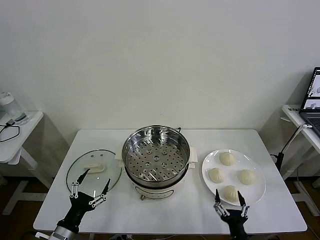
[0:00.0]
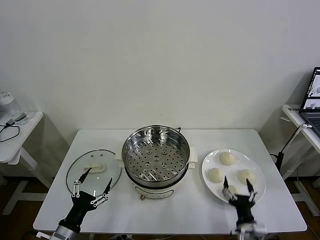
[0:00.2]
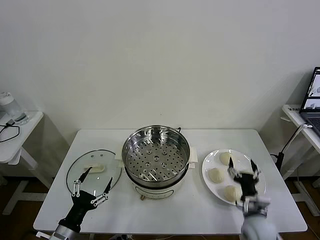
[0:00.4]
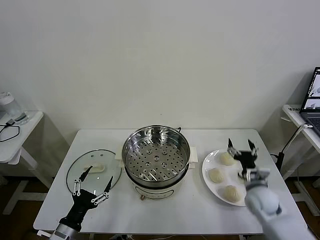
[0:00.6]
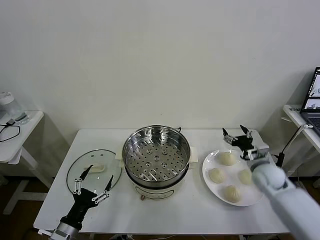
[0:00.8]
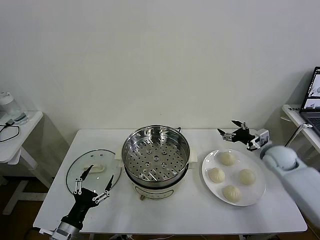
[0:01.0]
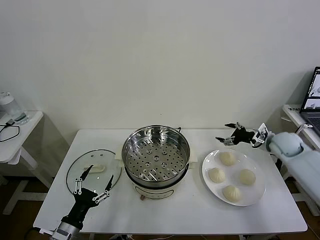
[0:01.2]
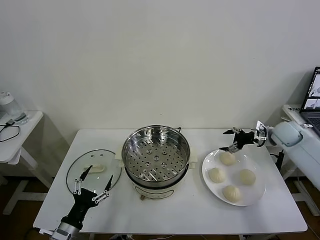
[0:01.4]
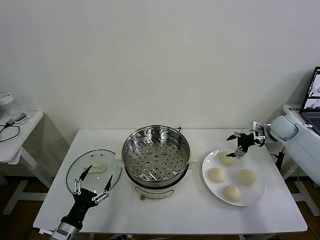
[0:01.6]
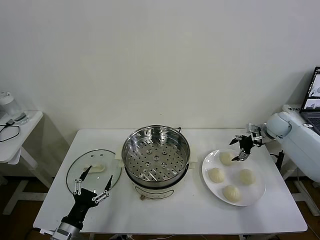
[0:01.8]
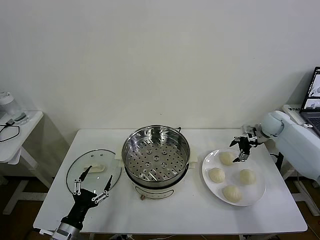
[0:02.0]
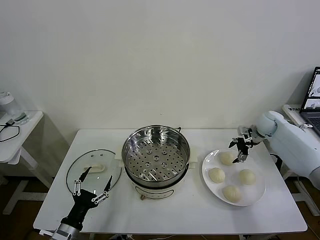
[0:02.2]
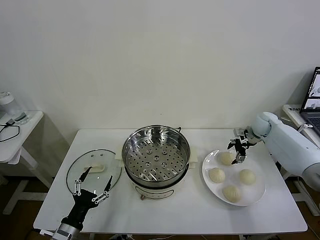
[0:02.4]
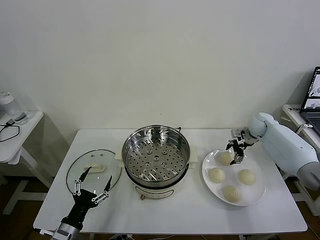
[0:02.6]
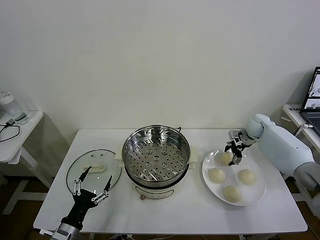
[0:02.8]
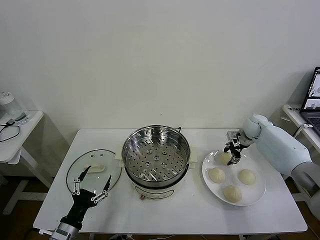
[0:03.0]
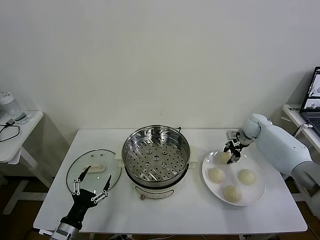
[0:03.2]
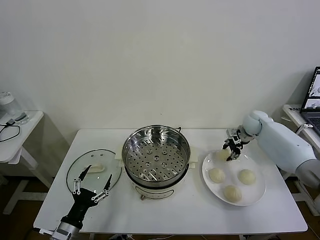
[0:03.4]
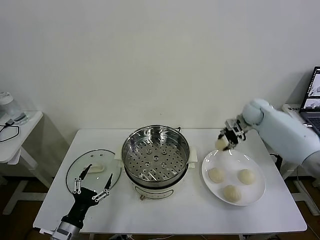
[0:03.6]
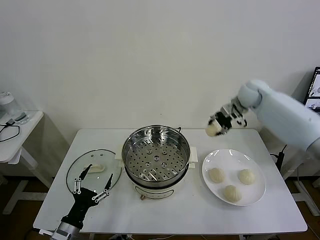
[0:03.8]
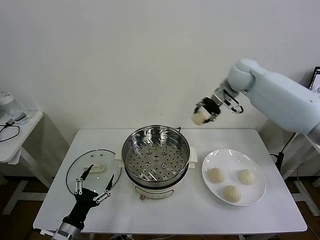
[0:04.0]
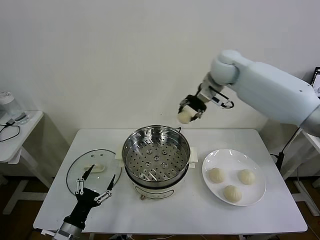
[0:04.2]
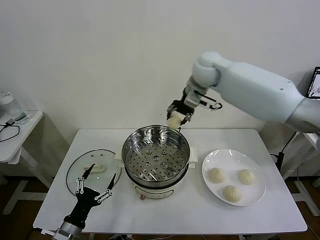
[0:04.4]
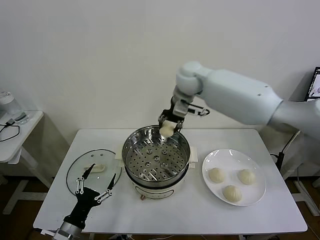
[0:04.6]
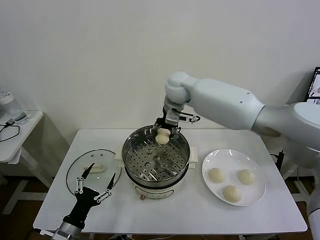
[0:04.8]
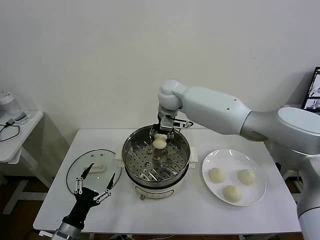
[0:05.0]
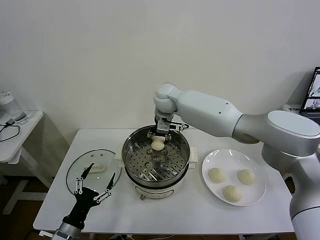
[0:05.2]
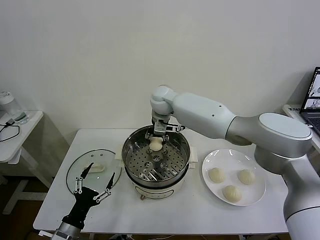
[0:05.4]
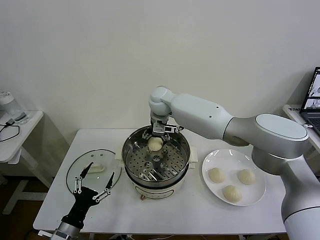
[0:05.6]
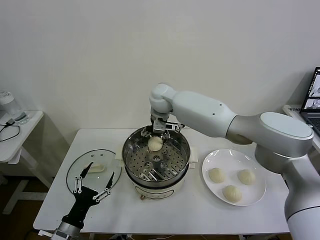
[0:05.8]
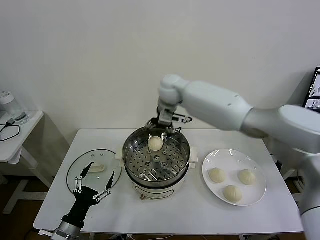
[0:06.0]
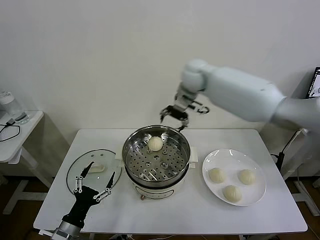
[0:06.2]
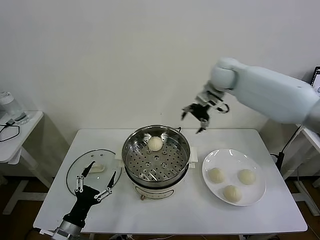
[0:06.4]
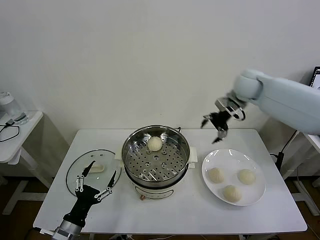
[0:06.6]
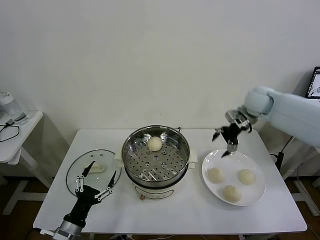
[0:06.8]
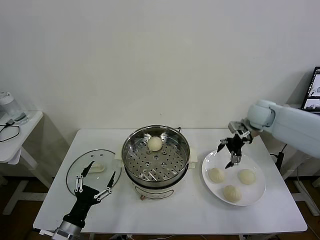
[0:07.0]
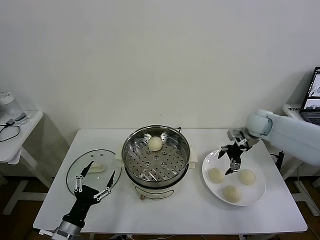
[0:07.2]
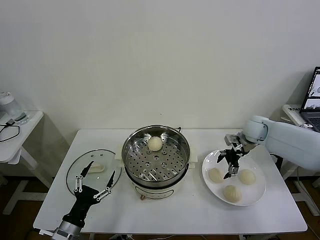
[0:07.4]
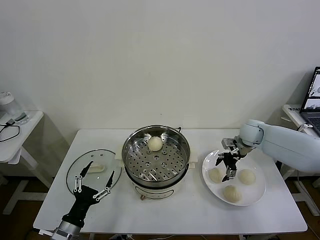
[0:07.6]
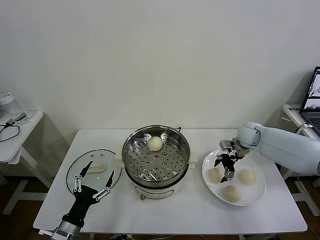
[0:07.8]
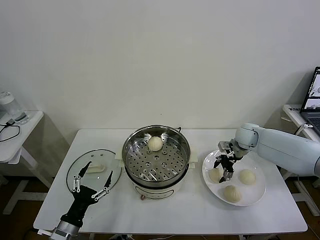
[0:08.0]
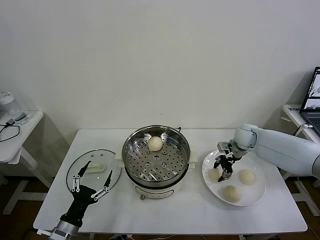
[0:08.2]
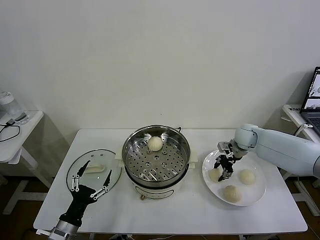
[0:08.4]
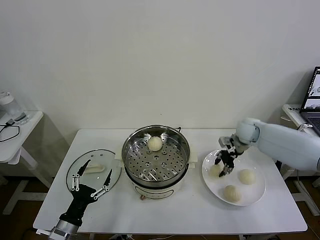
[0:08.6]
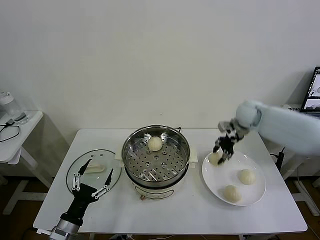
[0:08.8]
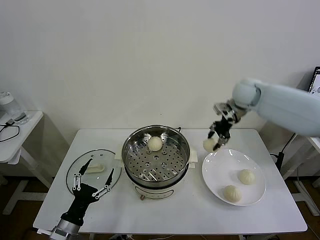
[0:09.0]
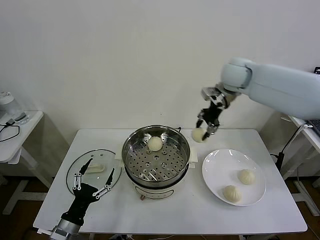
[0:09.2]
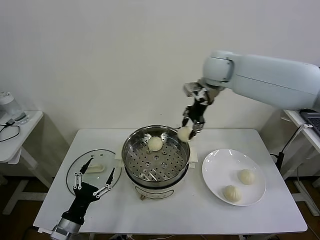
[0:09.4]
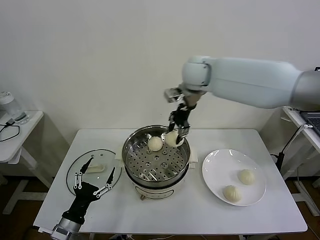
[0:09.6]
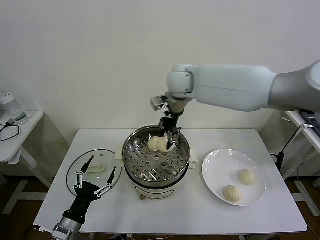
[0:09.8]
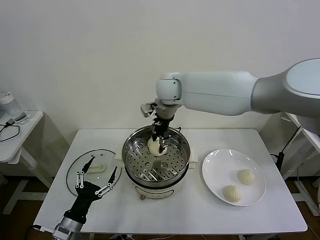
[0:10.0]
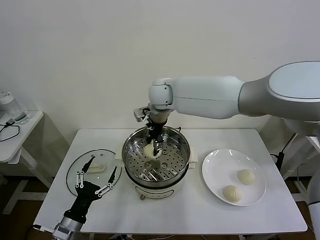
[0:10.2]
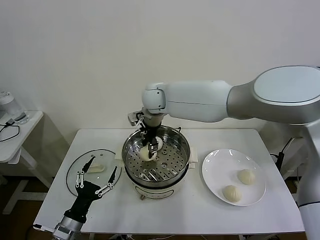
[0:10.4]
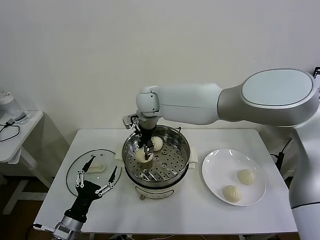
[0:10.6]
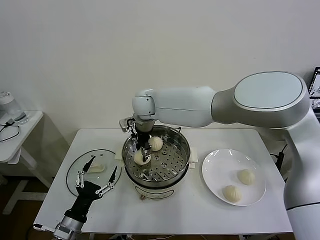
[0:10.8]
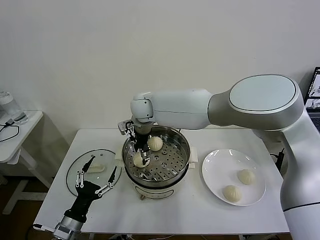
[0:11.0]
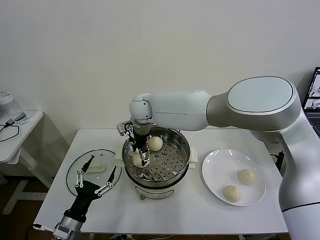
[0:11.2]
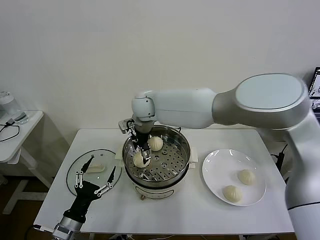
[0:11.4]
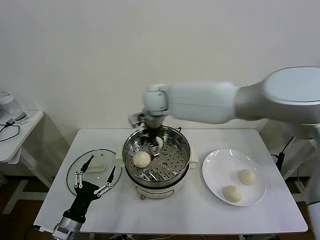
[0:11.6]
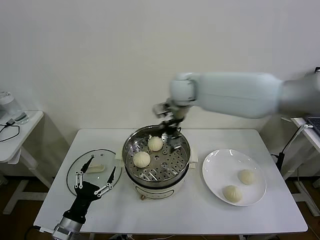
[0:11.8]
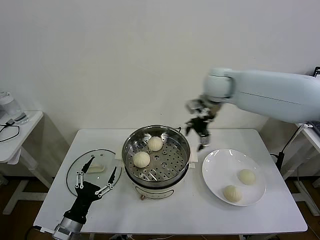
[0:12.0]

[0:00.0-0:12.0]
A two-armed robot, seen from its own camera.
Task of the whole recording: take steamed baozi put them in steamer then cover it.
Step, 0:00.0 to 0:03.0: Grasp the baozi in the plate with right gripper.
Step, 0:03.4 to 0:05.6: Place the baozi on the steamer with right gripper.
Step, 0:05.8 to 0:08.2: Grasp the baozi in the plate with right gripper.
Step, 0:08.6 to 0:11.2: Place the baozi on the steamer with right gripper.
0:01.6 to 0:03.0: The right gripper is displaced to the left, downward and forward by some 10 cm, and closes its fingers.
0:03.0 to 0:04.4: The right gripper shifts some 35 cm to the left and upward.
0:04.4 to 0:06.0: The right gripper opens up.
0:06.0 to 0:07.6: The right gripper shifts approximately 35 cm to the right and downward.
0:07.6 to 0:09.0: The right gripper heads upward and to the left, covering roughly 20 cm, and closes its fingers.
0:09.0 to 0:10.4: The right gripper shifts approximately 30 cm to the left.
0:10.4 to 0:12.0: The right gripper shifts roughly 25 cm to the right, and opens.

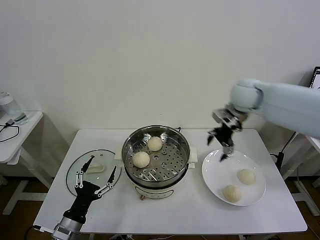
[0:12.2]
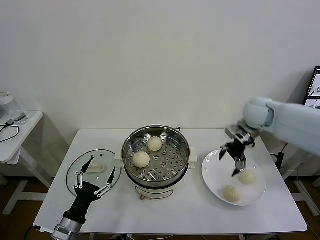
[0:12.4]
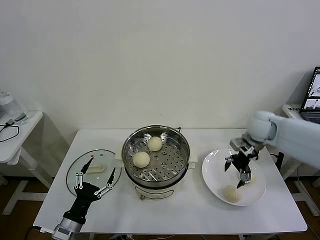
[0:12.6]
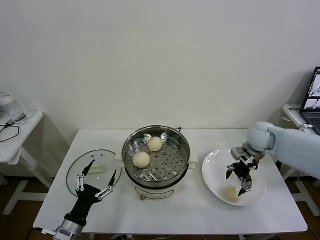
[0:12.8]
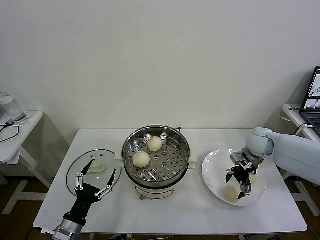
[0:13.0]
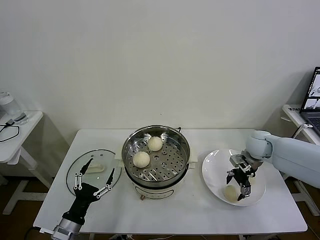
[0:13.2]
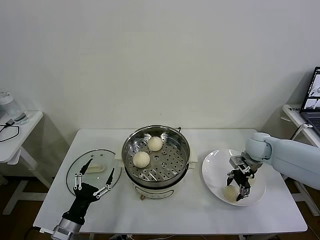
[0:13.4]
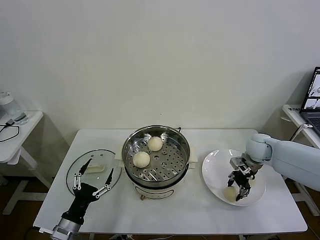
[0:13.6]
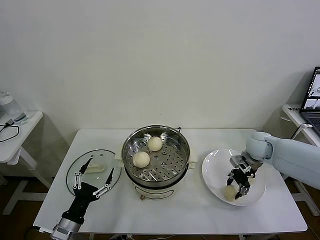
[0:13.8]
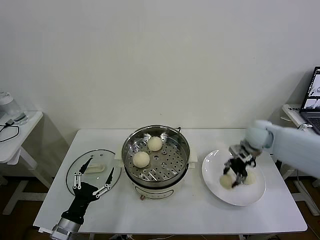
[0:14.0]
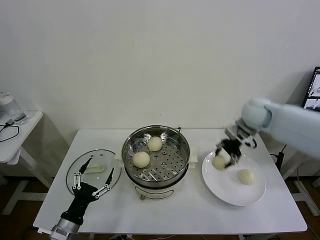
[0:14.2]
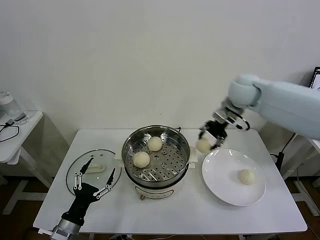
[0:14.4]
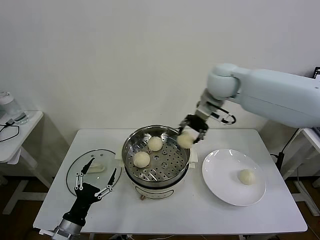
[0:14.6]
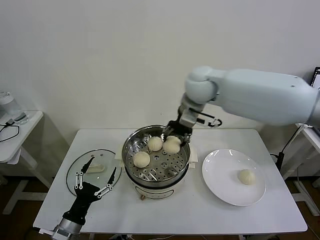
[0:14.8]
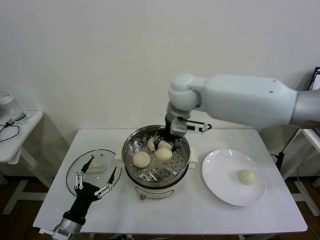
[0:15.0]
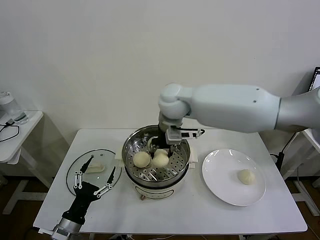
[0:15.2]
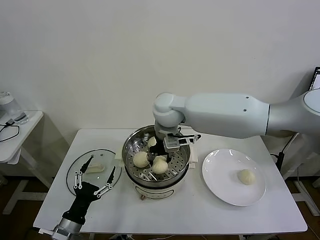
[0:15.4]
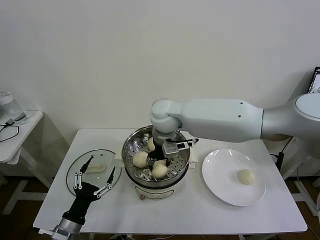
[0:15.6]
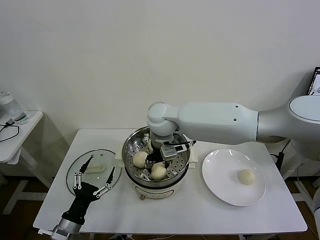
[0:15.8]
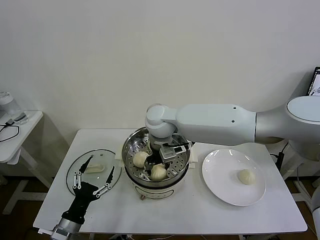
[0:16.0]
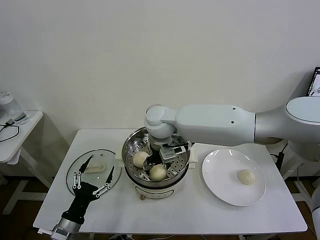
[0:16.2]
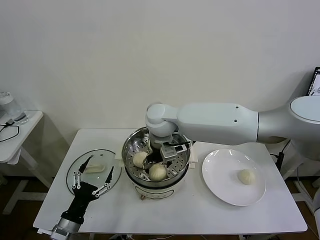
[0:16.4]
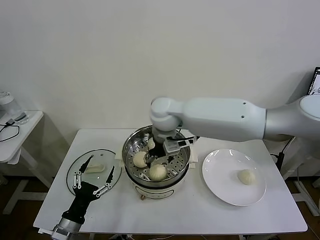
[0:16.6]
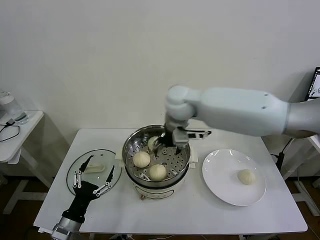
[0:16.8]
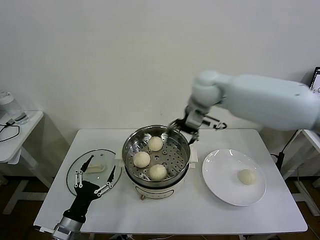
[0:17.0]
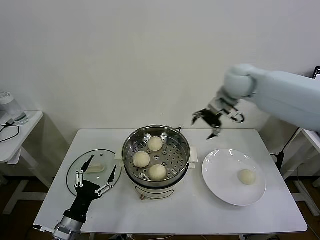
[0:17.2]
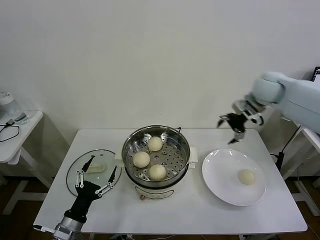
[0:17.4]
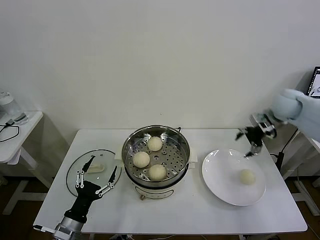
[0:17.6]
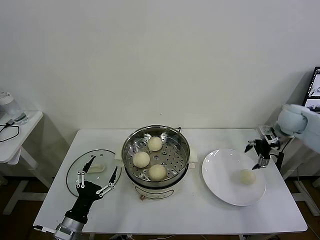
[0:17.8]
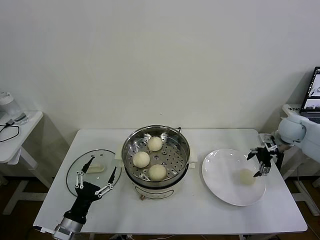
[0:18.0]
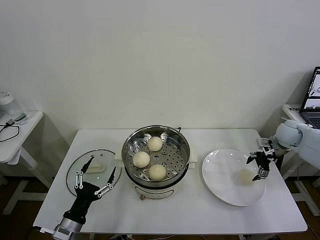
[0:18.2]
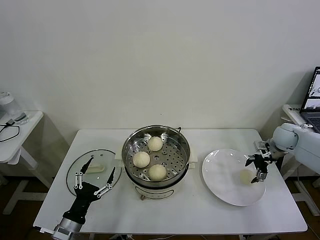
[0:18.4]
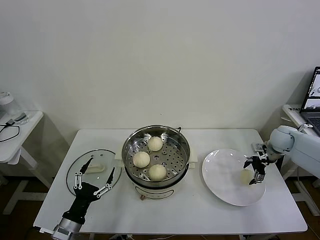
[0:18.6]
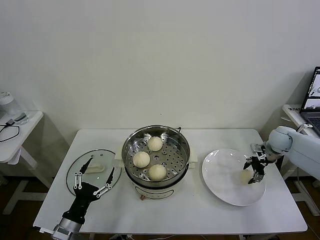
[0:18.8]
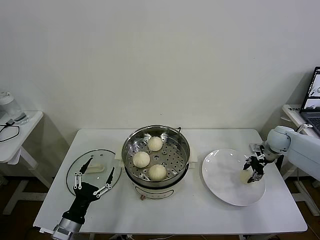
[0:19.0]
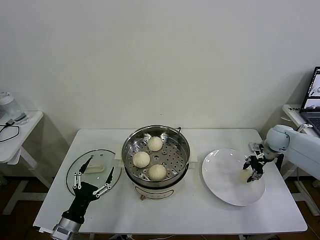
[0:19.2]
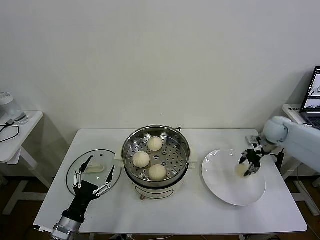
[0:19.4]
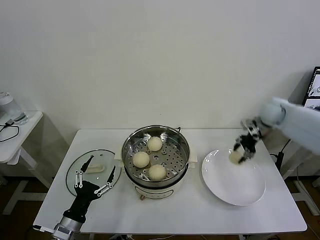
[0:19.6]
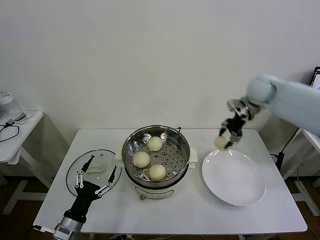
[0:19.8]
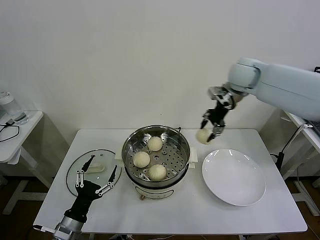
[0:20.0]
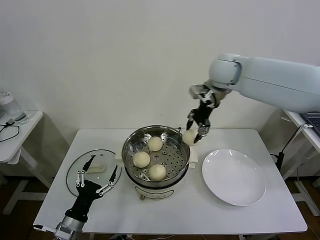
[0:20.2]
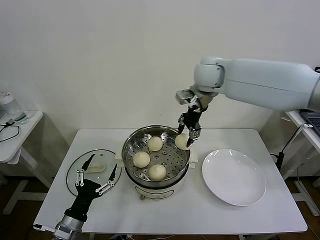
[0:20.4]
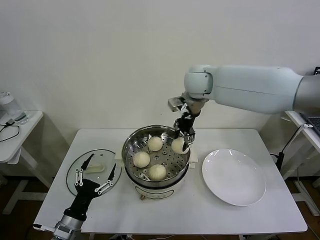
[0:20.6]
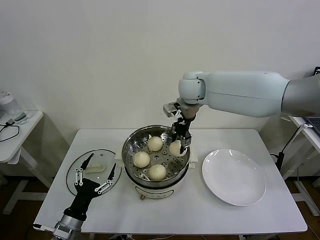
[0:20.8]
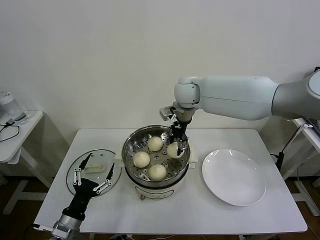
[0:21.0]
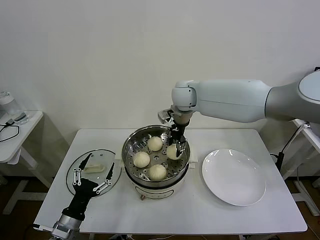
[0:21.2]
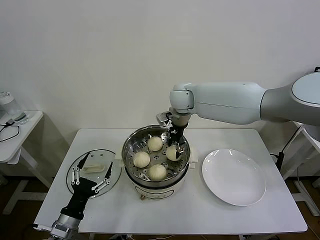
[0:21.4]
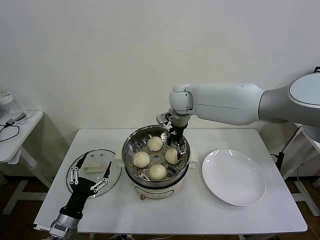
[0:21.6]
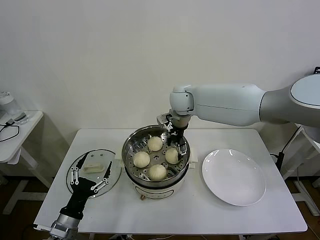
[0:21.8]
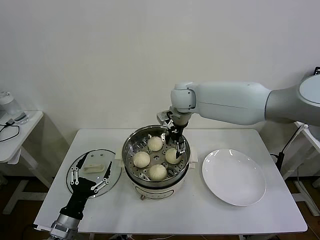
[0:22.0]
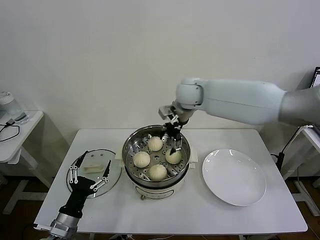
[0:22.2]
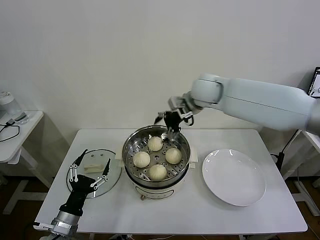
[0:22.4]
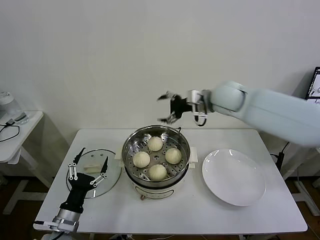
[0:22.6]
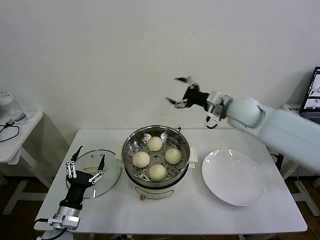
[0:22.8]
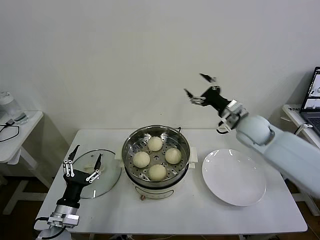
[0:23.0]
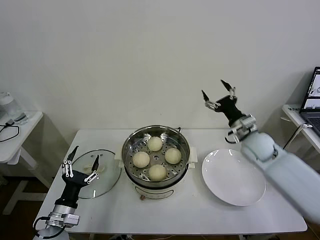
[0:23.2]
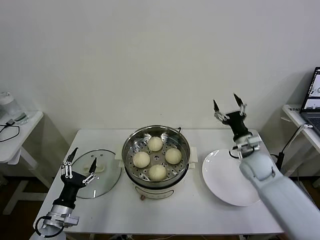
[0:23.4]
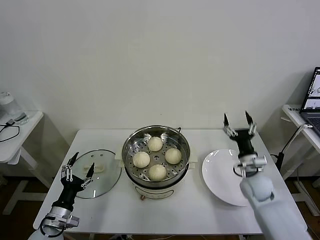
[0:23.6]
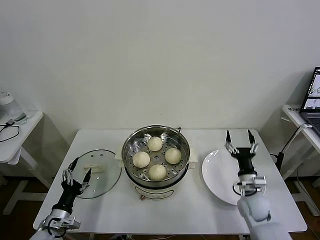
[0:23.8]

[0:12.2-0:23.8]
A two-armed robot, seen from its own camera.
Task of the whole recording: take steamed baozi put them in steamer then cover it.
Step, 0:12.2 to 0:13.6: Grasp the baozi in the plate with right gripper.
Step, 0:13.8 to 0:16.4: Place the baozi on the steamer with right gripper.
Step, 0:16.6 to 0:19.0: Grasp the baozi in the plate with right gripper.
Step, 0:19.2 to 0:21.8: Place the baozi on the steamer with right gripper.
0:12.2 to 0:13.6: The right gripper shifts approximately 20 cm downward and to the right, and closes its fingers.
0:13.6 to 0:15.0: The right gripper is displaced to the left and upward by roughly 35 cm.
0:15.0 to 0:16.6: The right gripper opens up.
0:16.6 to 0:18.0: The right gripper is displaced to the right by some 40 cm.
0:18.0 to 0:19.4: The right gripper closes its fingers.
0:19.4 to 0:21.0: The right gripper is displaced to the left and upward by roughly 35 cm.
0:21.0 to 0:22.4: The right gripper shifts some 5 cm to the right, and opens.
0:22.4 to 0:23.8: The right gripper goes some 40 cm downward, backward and to the right; the left gripper shifts approximately 10 cm to the left and downward.
